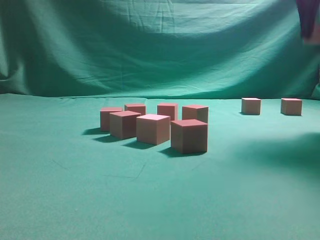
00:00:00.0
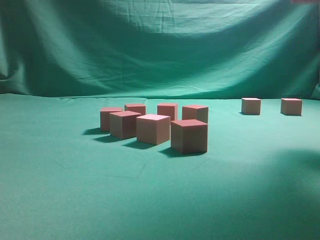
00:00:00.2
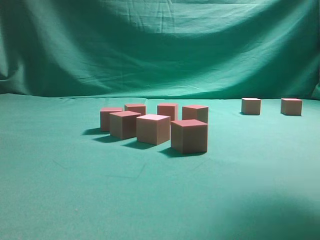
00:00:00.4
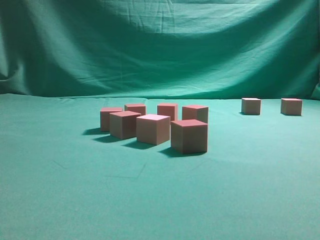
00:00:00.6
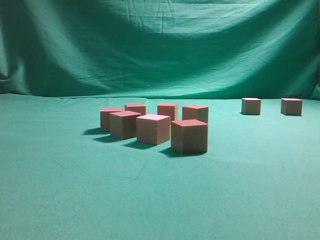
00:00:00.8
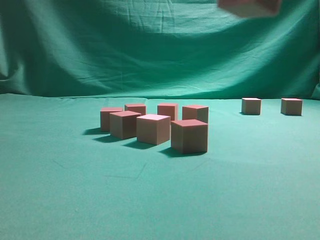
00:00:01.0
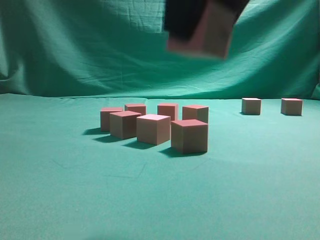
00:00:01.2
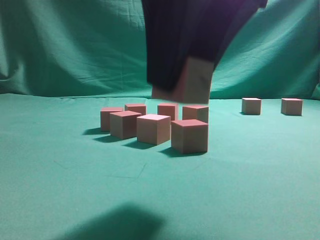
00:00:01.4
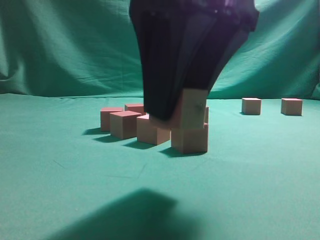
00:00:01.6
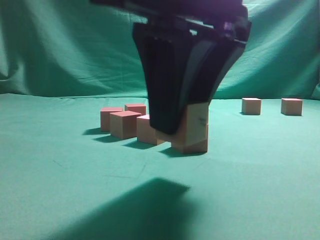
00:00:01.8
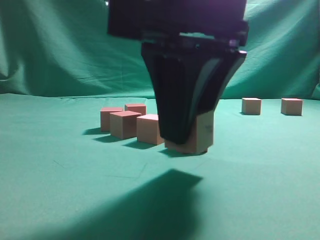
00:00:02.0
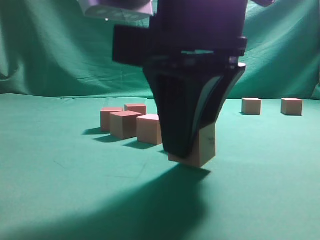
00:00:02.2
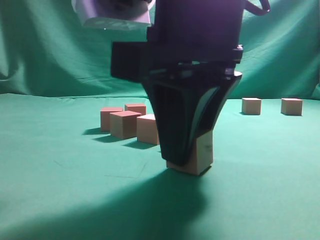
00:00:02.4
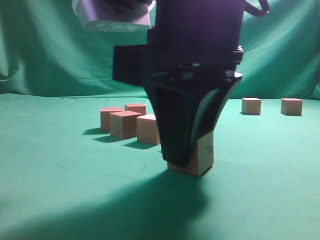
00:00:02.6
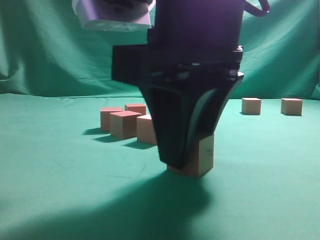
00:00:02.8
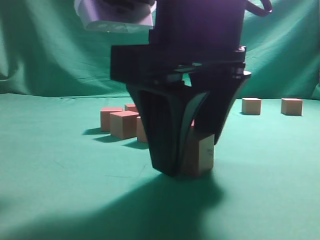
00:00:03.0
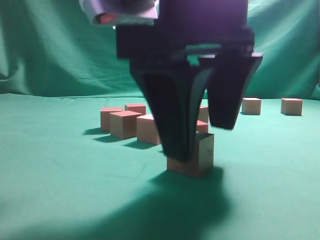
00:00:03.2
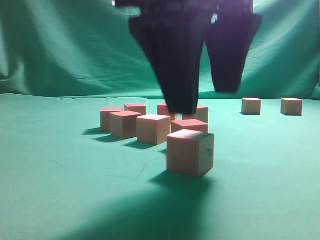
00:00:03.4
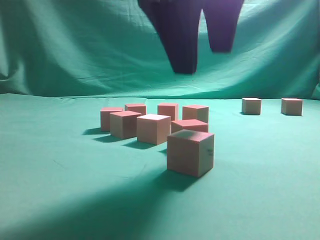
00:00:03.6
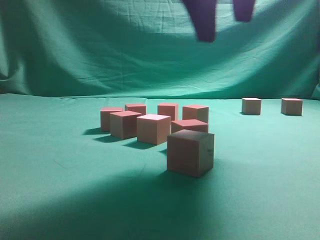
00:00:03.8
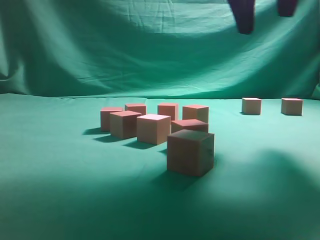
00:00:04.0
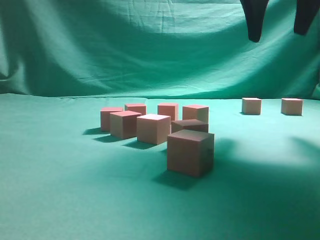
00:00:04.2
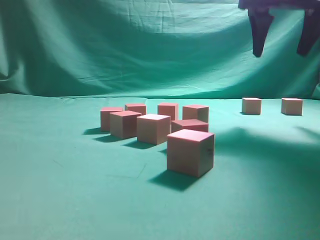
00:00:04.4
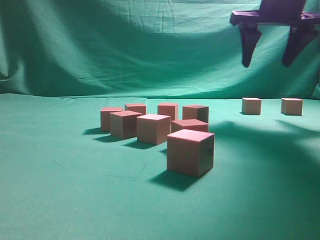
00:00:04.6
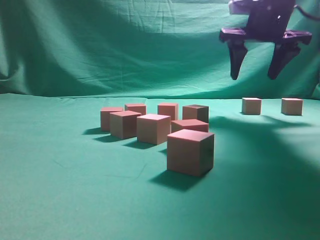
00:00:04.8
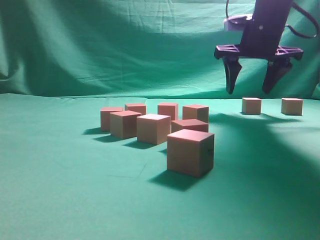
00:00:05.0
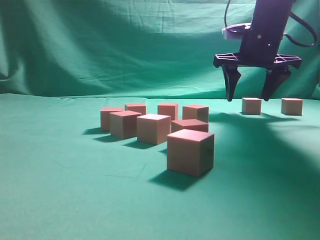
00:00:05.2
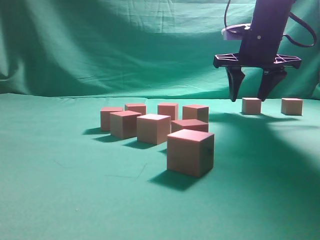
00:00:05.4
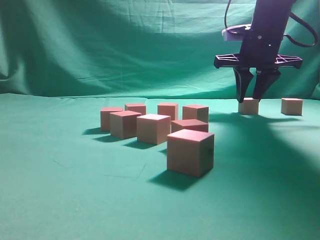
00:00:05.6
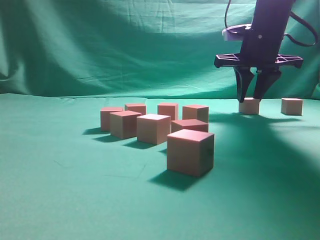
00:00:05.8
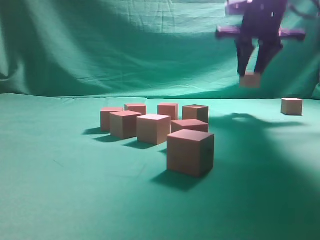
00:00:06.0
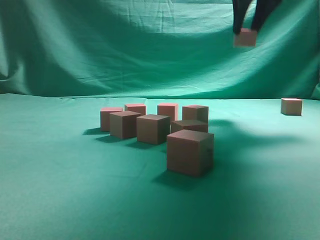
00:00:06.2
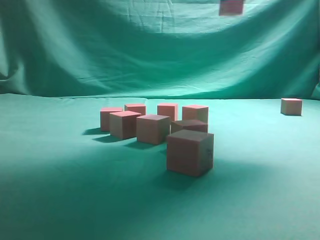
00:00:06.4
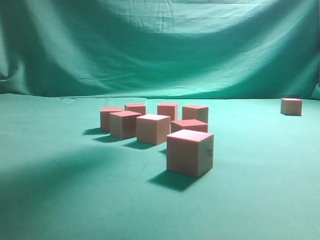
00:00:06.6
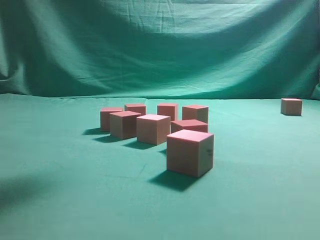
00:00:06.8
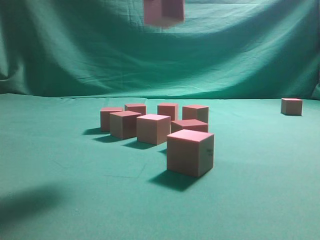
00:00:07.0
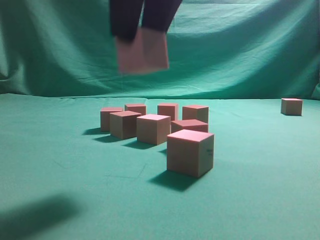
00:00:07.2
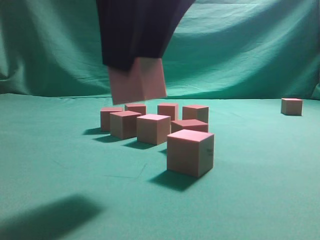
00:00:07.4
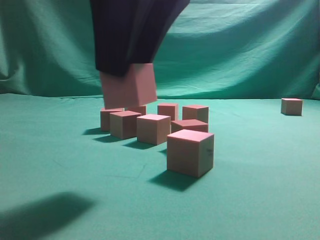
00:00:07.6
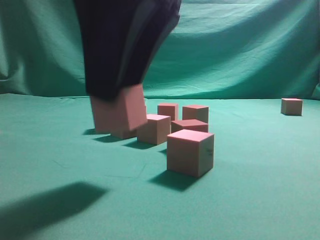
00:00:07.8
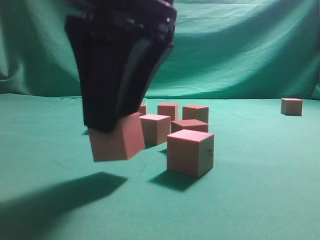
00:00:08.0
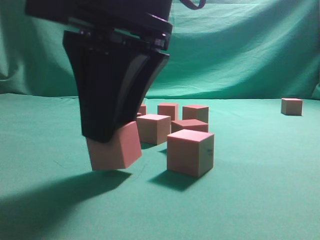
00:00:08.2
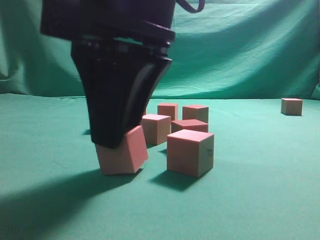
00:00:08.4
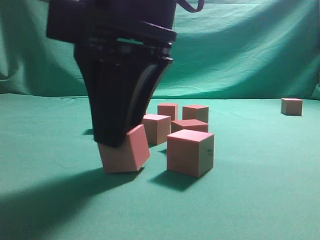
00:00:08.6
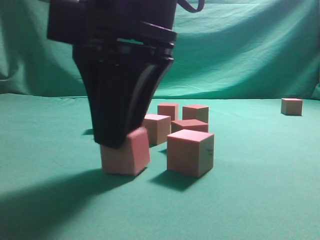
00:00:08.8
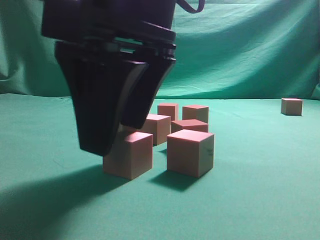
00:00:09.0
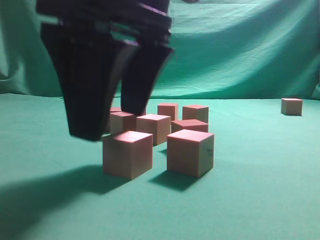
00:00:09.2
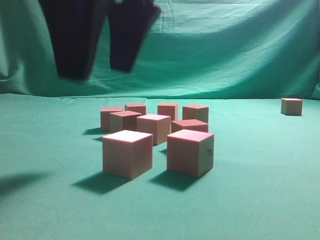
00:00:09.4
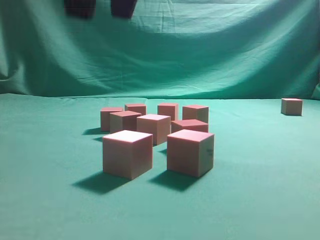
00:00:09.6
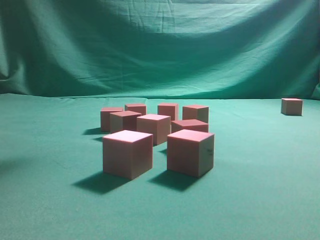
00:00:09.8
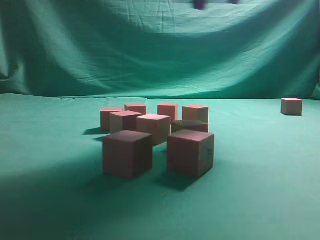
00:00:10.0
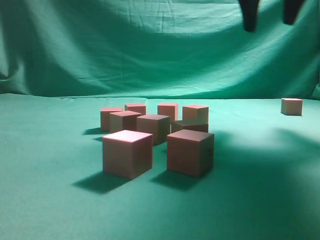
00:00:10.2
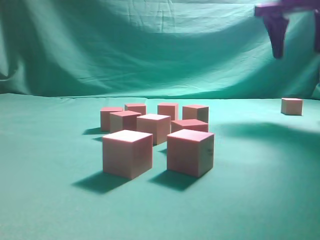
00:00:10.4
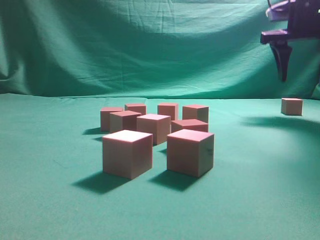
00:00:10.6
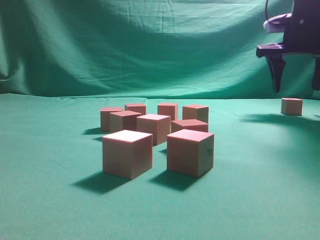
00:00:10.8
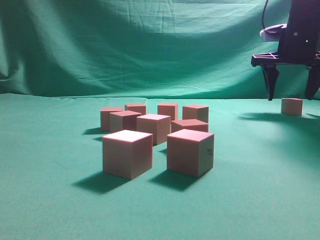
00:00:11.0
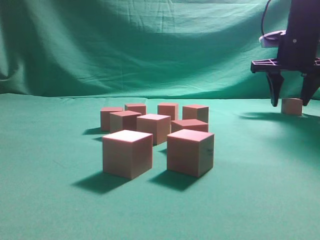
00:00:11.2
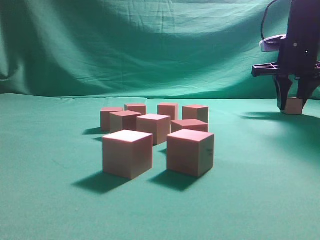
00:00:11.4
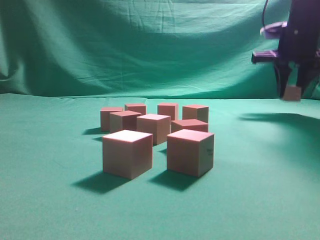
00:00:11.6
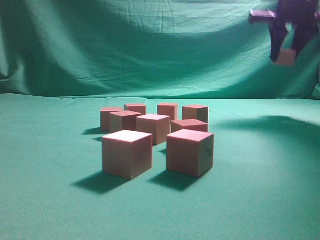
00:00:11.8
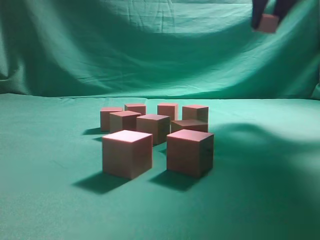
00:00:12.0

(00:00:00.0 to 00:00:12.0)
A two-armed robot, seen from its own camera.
Task of the whole recording: pick up the multiple cubes in two columns one by one and place them in another position on the table.
Step, 00:00:00.8 - 00:00:03.8: Place the block at the correct position to assemble the letter S.
Step, 00:00:04.0 - 00:00:06.6: Pick up the block on the table.
Step, 00:00:06.8 - 00:00:09.4: Place the block at the correct position to assemble the letter S.
00:00:00.0 - 00:00:01.6: The right gripper heads backward and to the left, covering approximately 30 cm.
00:00:01.6 - 00:00:03.0: The grippers stay close to where they were, moving slightly.
00:00:03.0 - 00:00:04.4: The right gripper moves forward, to the right and upward, some 25 cm.
00:00:04.4 - 00:00:06.0: The right gripper moves forward, about 10 cm, and closes up.
00:00:06.0 - 00:00:07.6: The right gripper shifts roughly 35 cm backward and to the left.
00:00:07.6 - 00:00:09.0: The right gripper is displaced downward by approximately 5 cm.
00:00:09.0 - 00:00:10.4: The right gripper is displaced forward and to the right by roughly 35 cm.
00:00:10.4 - 00:00:12.0: The right gripper travels downward and back again, approximately 10 cm each way, and closes up.

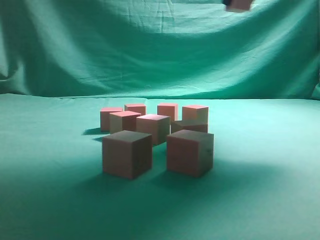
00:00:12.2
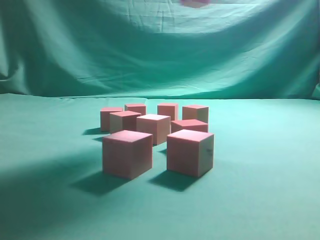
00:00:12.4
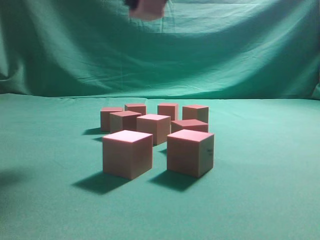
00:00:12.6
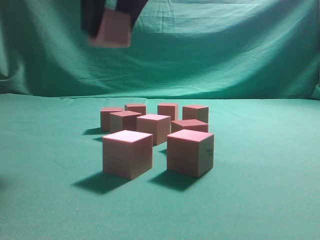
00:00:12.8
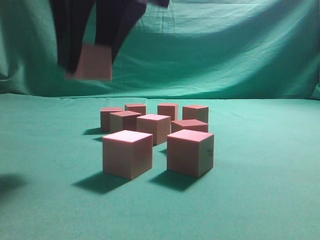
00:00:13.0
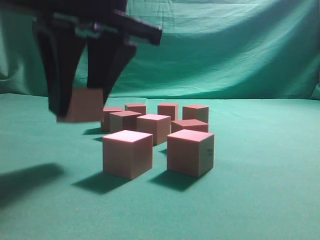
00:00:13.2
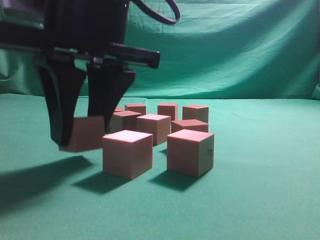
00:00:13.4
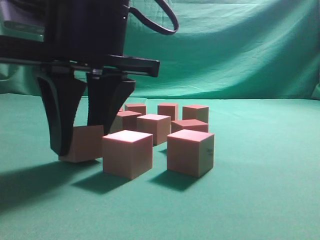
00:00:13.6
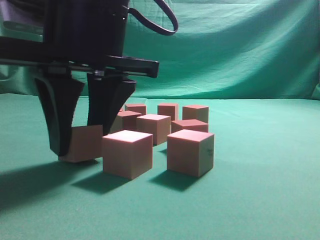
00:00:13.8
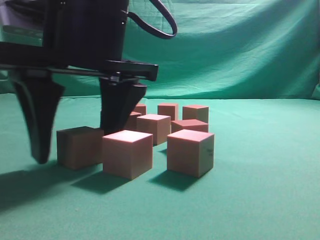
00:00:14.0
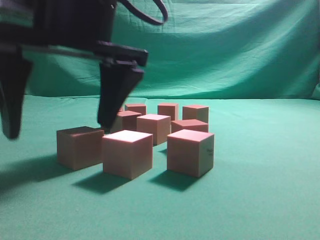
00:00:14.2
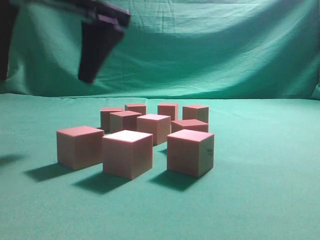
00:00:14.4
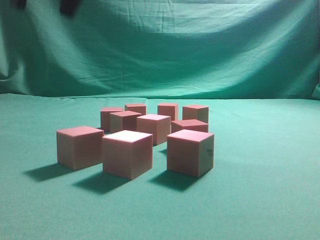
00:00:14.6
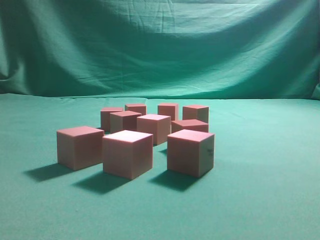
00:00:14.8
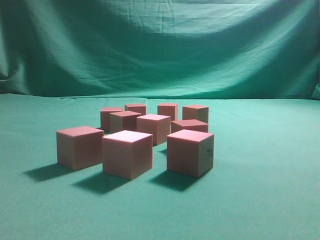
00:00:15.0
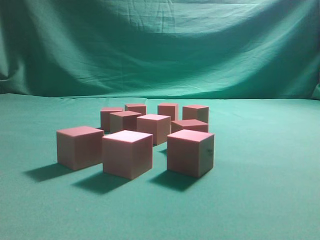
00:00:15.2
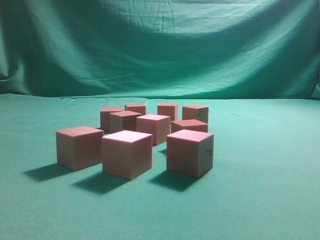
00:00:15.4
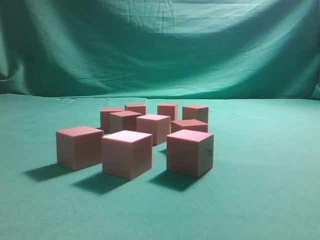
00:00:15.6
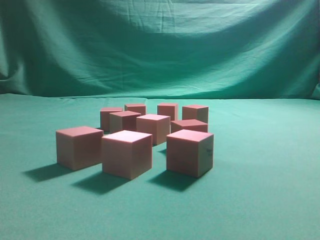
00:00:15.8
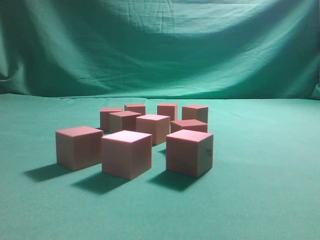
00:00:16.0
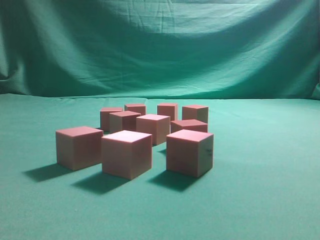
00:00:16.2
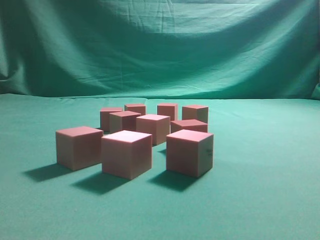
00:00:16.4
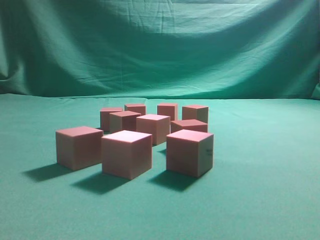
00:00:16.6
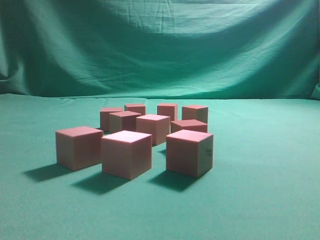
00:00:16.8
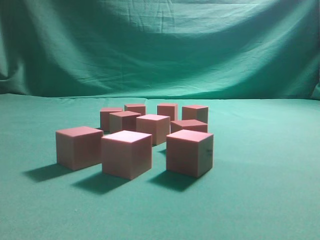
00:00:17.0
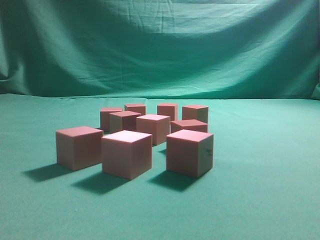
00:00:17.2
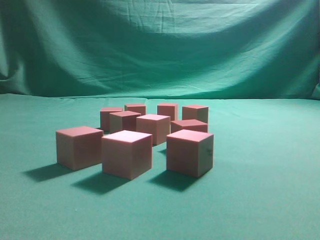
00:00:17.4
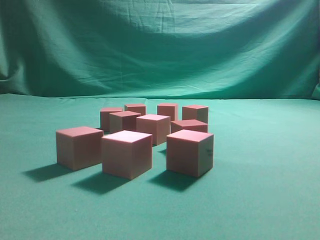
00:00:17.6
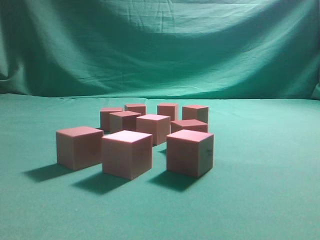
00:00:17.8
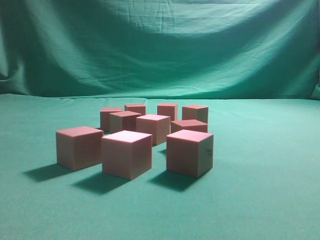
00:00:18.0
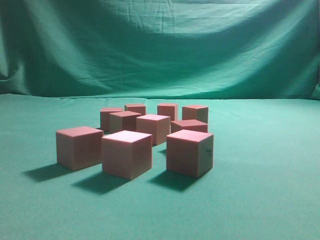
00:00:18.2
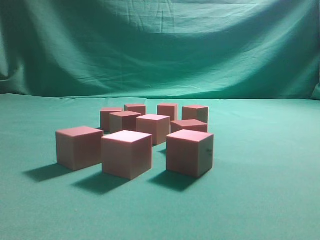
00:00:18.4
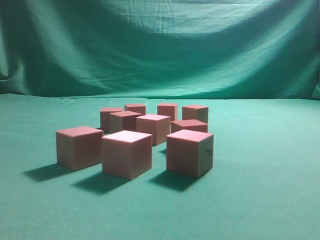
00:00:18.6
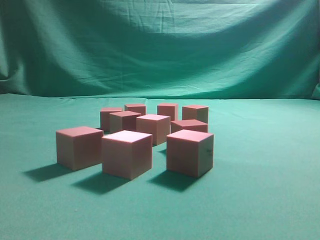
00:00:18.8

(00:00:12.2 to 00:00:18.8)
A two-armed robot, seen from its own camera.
Task of the whole recording: pick up the multiple cubes in two columns one by one and place them in another position on the table.
Step, 00:00:12.4 - 00:00:14.4: Place the block at the correct position to assemble the letter S.
00:00:12.2 - 00:00:13.8: The right gripper goes approximately 30 cm to the left, downward and backward.
00:00:13.8 - 00:00:15.4: The right gripper moves upward and to the right, roughly 40 cm, and closes up.
